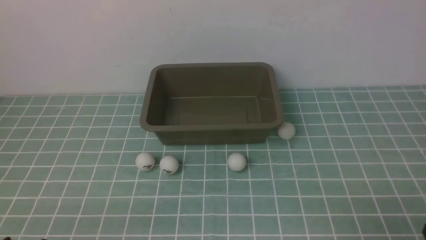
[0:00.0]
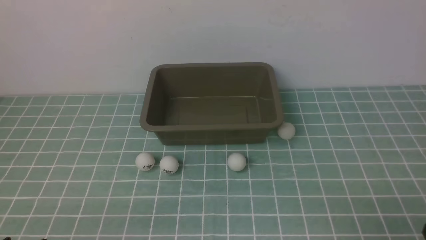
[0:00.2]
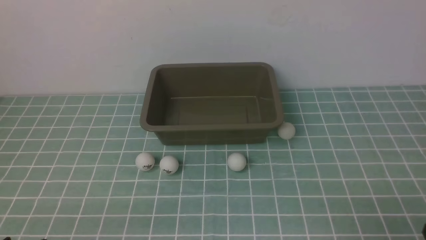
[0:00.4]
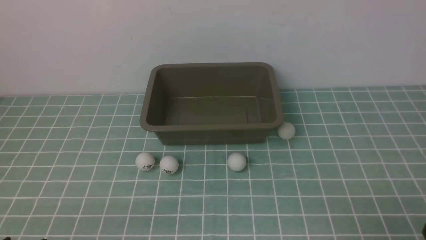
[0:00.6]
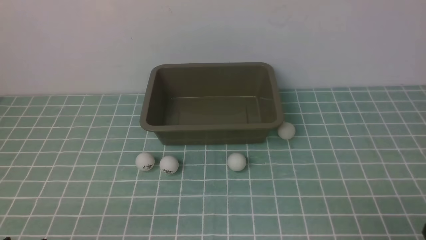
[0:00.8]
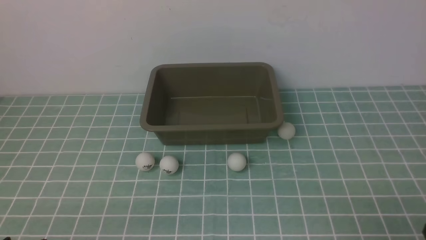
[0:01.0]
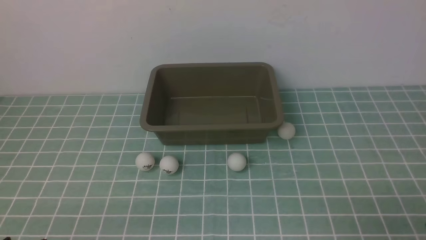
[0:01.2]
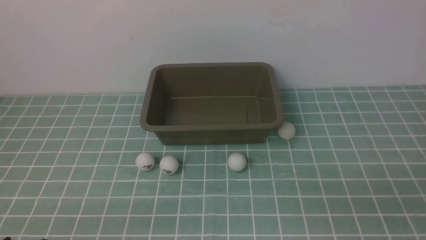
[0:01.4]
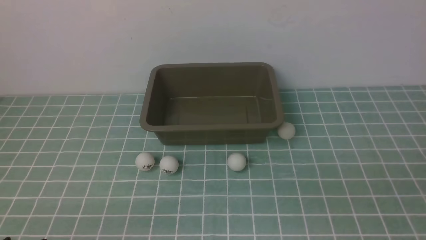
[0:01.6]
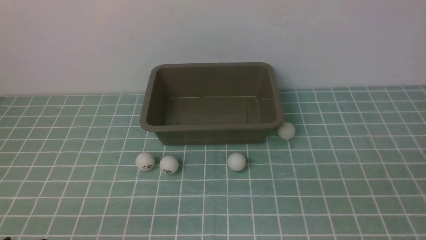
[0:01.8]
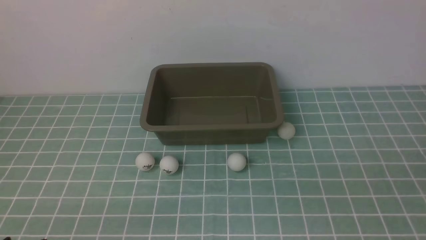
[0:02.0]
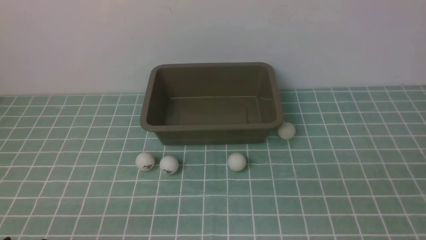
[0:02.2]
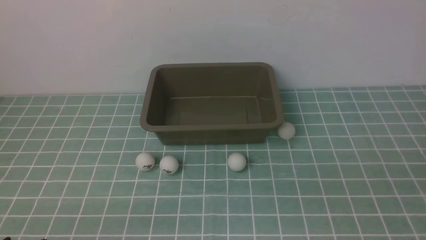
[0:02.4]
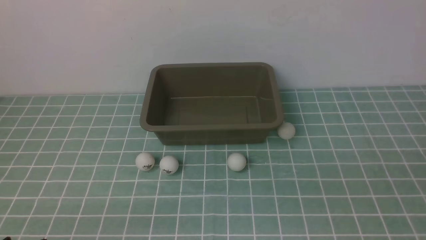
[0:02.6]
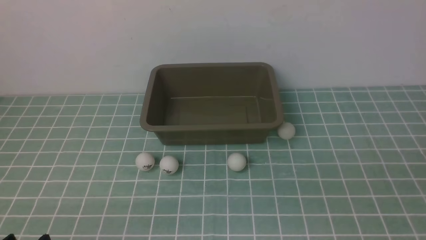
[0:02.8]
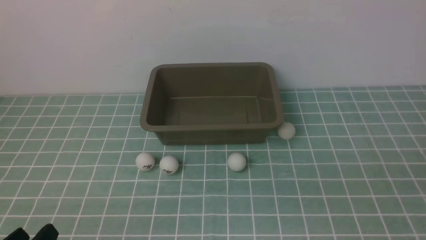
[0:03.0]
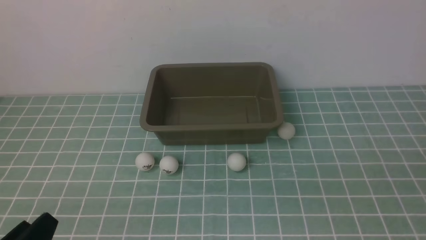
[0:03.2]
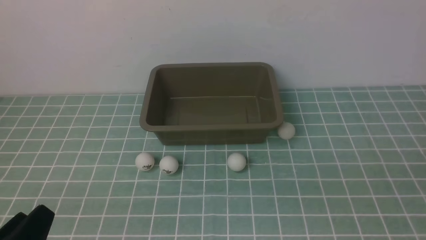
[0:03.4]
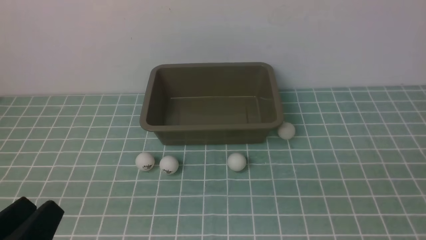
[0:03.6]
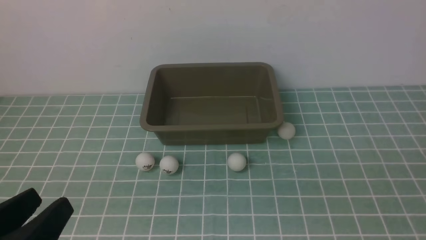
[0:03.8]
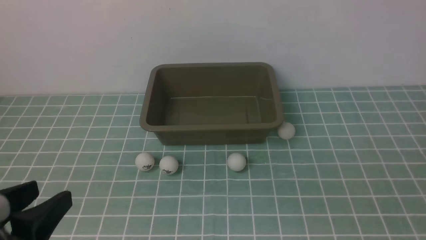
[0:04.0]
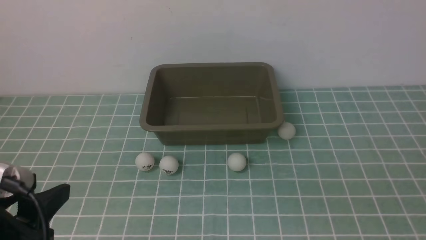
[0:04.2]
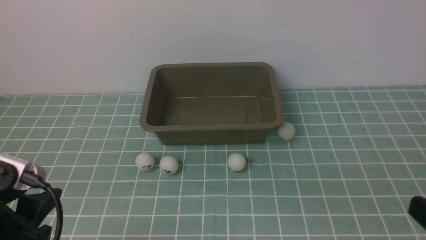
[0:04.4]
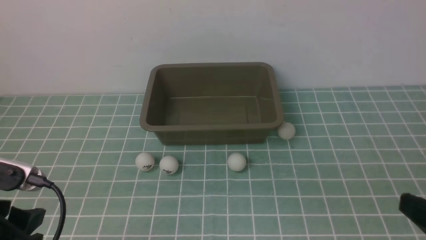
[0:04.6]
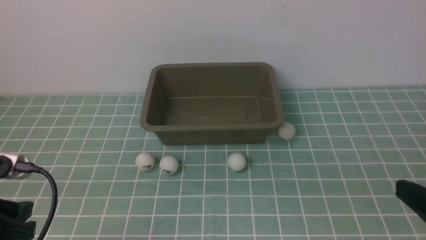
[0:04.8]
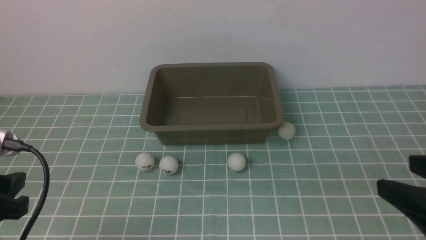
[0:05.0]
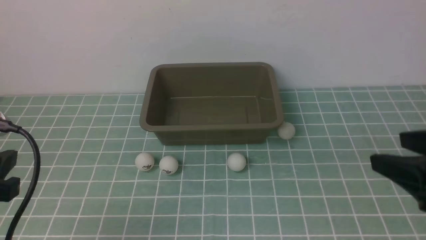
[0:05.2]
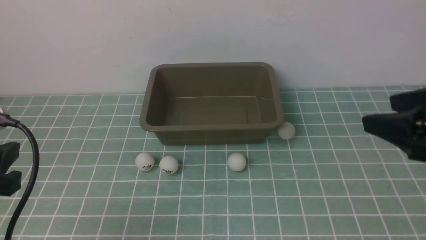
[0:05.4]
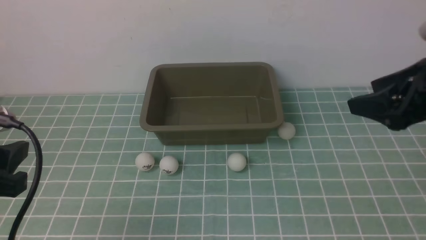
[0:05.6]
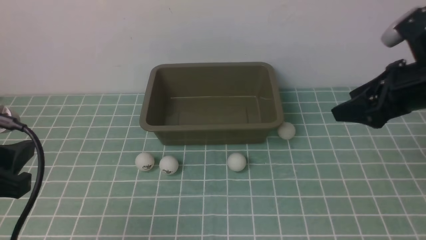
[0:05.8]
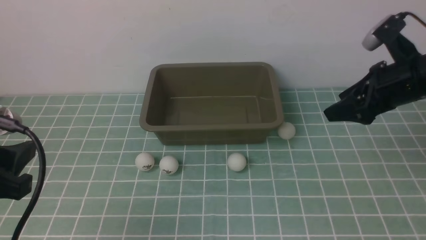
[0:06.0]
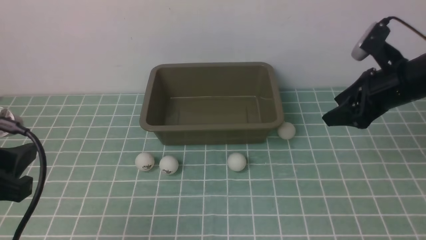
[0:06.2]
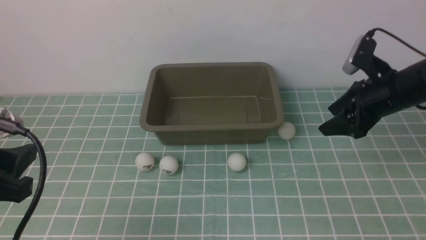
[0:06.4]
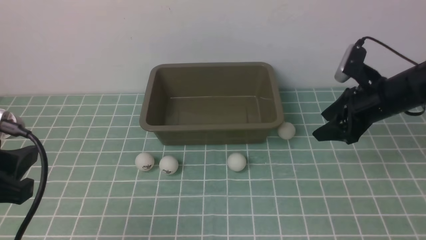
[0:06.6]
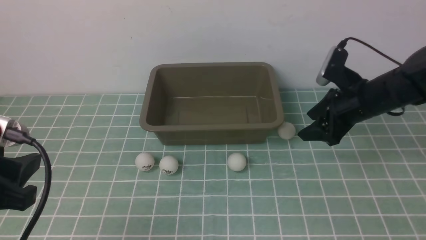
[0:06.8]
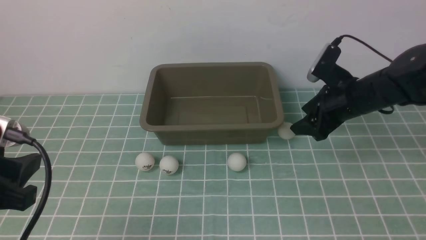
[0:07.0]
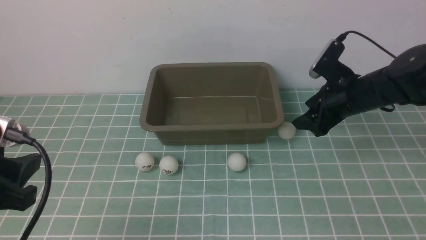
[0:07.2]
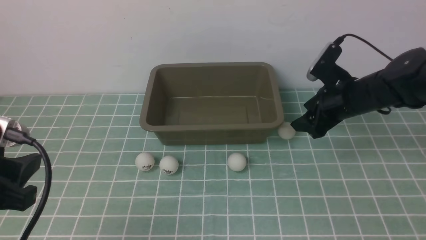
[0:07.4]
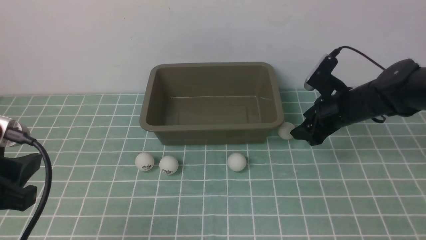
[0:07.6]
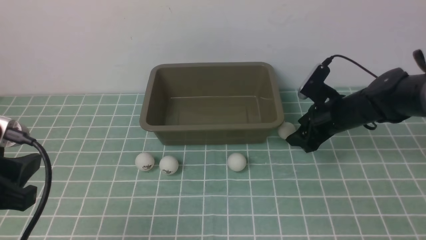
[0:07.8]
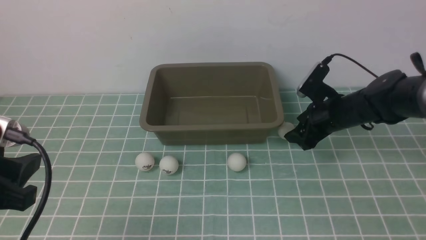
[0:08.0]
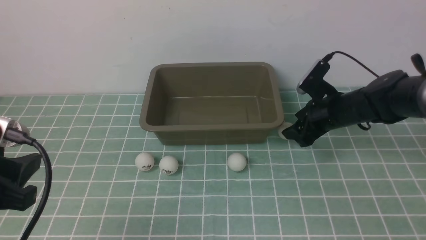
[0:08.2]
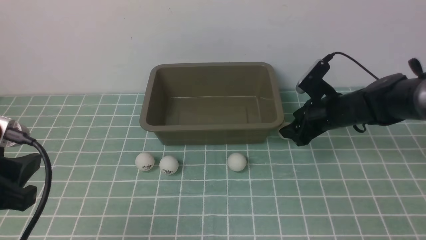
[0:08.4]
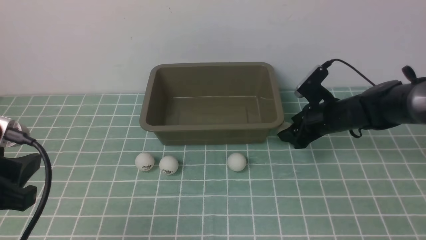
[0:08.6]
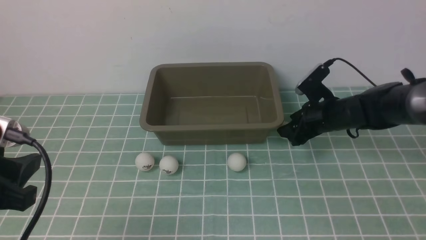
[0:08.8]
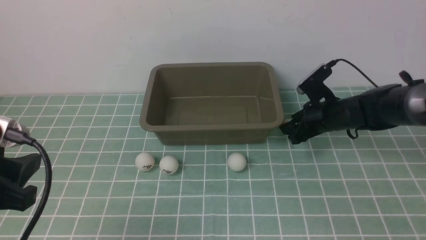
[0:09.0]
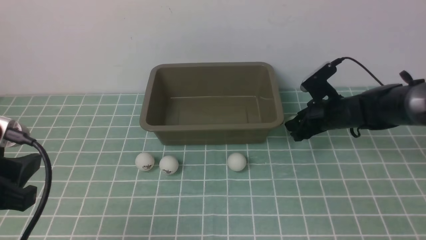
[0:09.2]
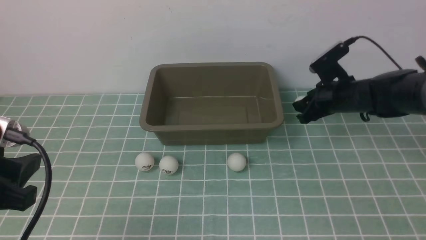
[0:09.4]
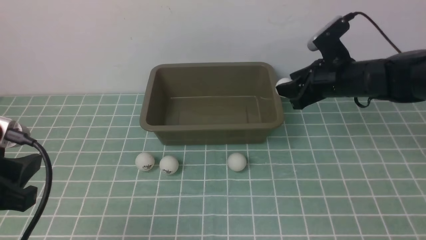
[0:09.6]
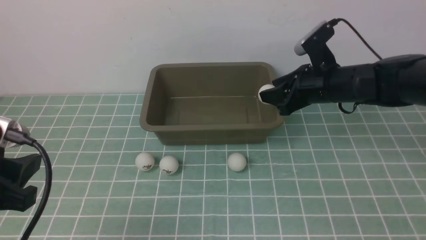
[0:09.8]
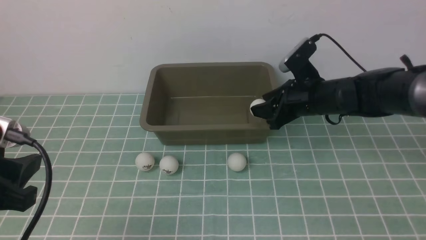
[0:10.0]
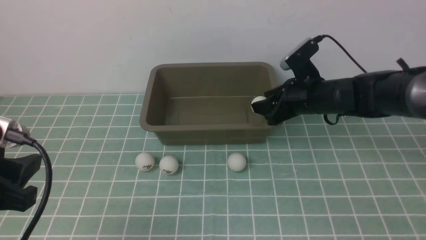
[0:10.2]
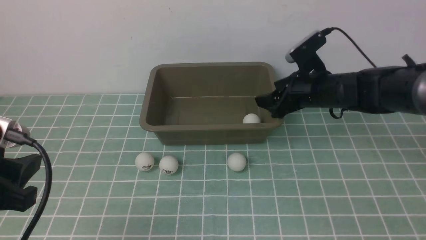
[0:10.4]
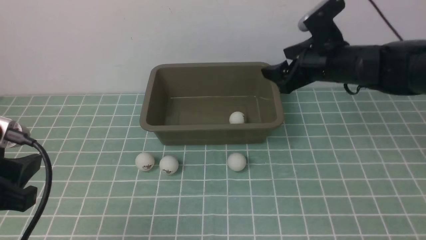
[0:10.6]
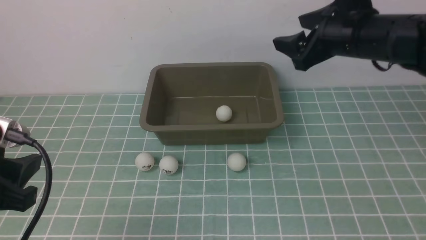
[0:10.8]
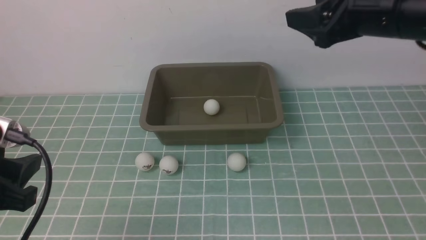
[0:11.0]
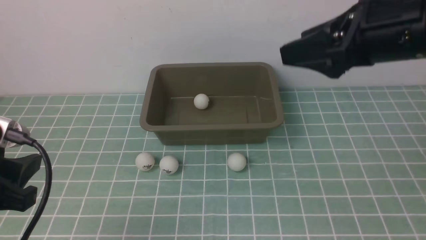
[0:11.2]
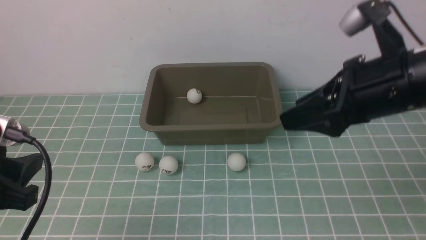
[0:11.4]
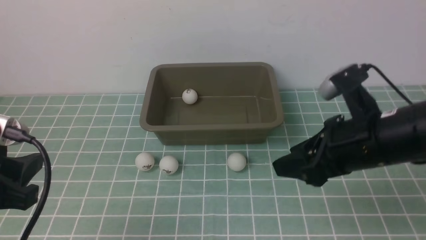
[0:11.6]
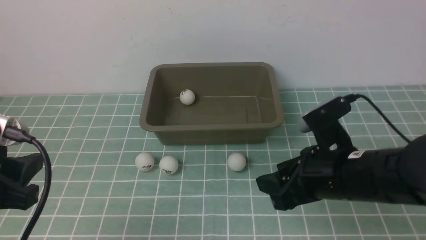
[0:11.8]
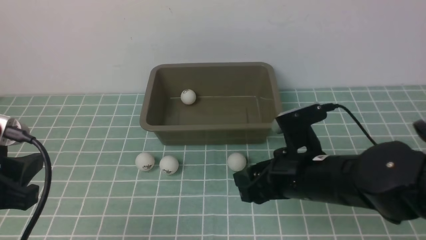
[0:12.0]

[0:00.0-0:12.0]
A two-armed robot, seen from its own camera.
Step, 0:00.0 to 0:09.2: use the right arm to clamp the table tennis ball closest to it.
Step, 0:09.4 to 0:10.4: use the right arm to put the table tennis ball into the box.
0:03.0 to 0:04.4: The left gripper goes approximately 10 cm upward and forward.
0:04.4 to 0:06.0: The left gripper changes place by some 5 cm; the right gripper shifts about 25 cm forward.
0:06.0 to 0:07.6: The right gripper heads downward and forward, covering roughly 15 cm.
0:07.6 to 0:09.0: The right gripper closes.
0:09.0 to 0:10.4: The right gripper goes approximately 10 cm upward, and opens its fingers.
0:10.4 to 0:12.0: The right gripper moves backward and to the left, roughly 15 cm, and reaches approximately 15 cm upward, then returns.

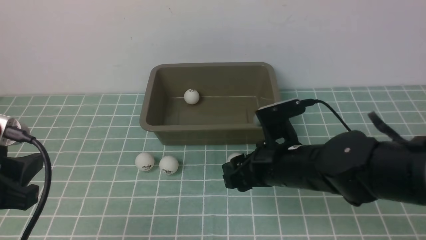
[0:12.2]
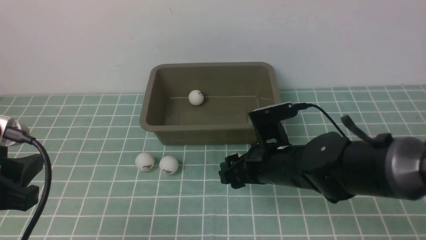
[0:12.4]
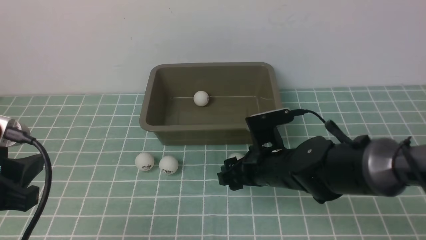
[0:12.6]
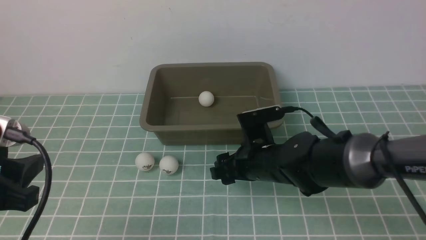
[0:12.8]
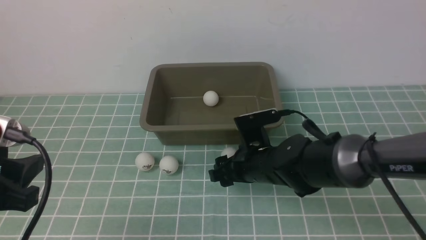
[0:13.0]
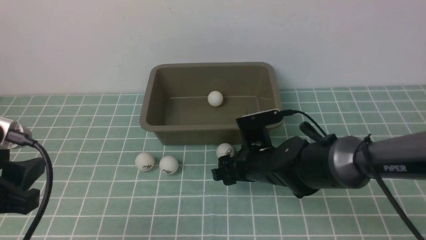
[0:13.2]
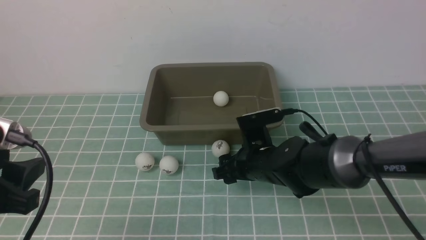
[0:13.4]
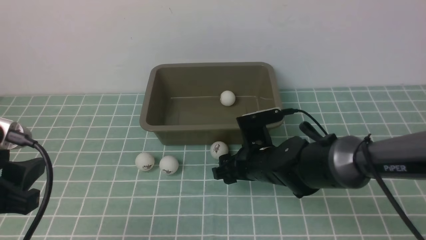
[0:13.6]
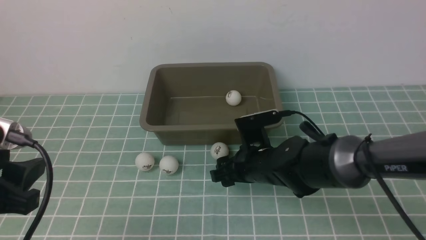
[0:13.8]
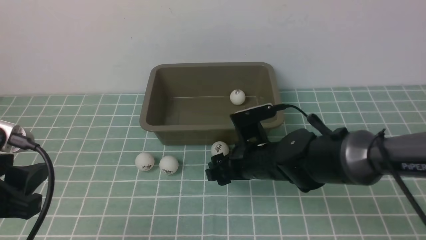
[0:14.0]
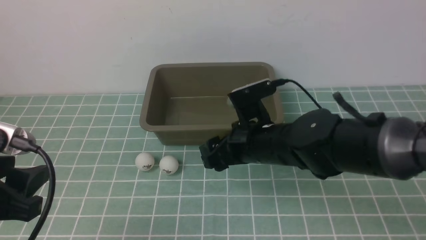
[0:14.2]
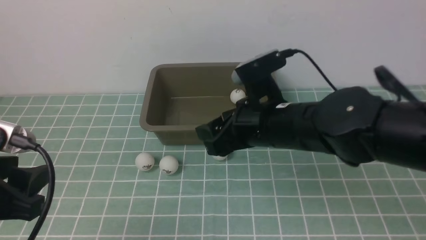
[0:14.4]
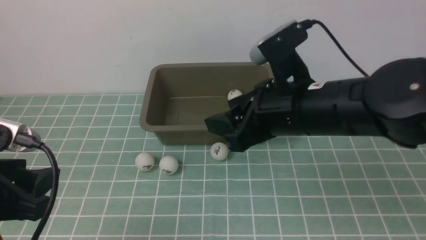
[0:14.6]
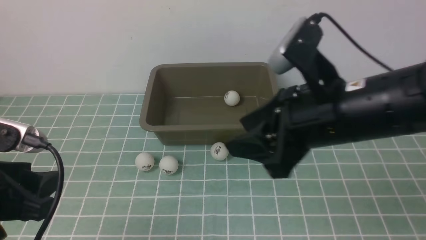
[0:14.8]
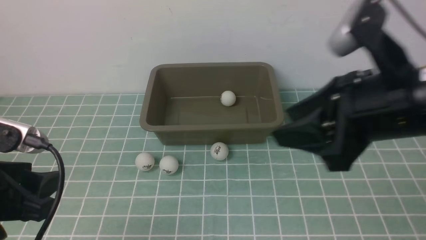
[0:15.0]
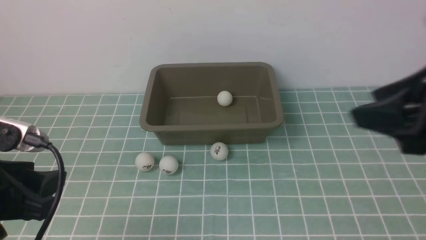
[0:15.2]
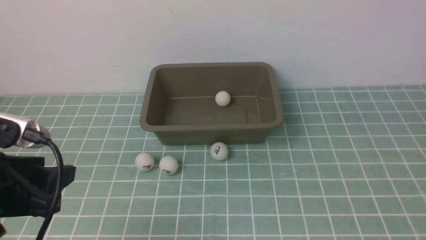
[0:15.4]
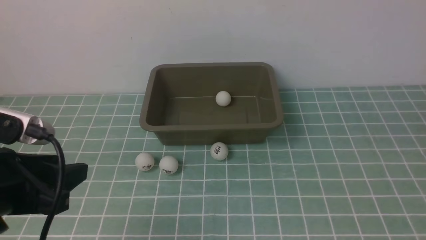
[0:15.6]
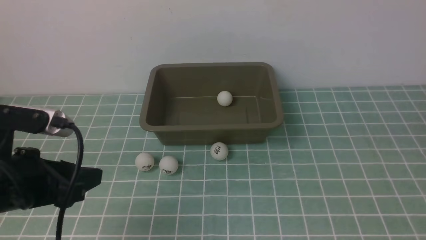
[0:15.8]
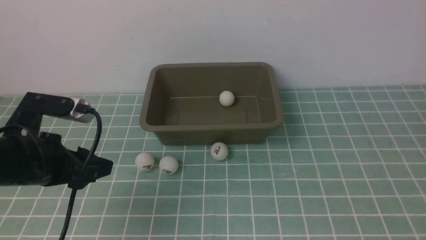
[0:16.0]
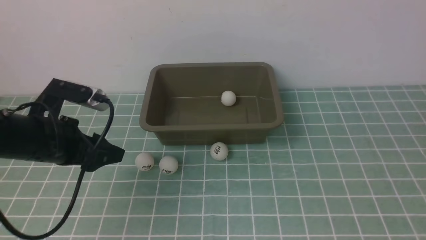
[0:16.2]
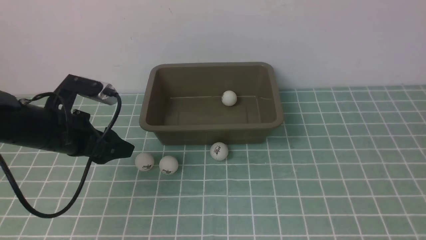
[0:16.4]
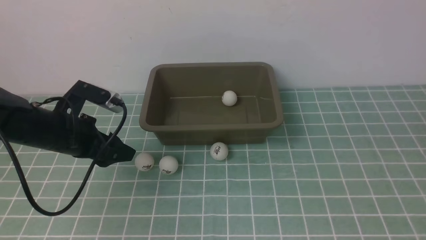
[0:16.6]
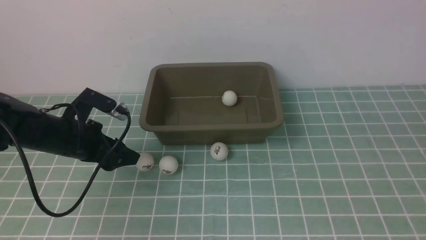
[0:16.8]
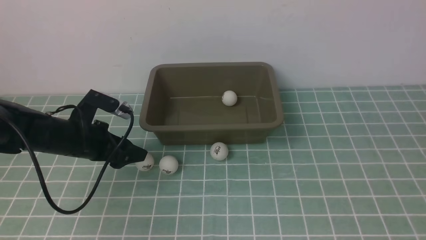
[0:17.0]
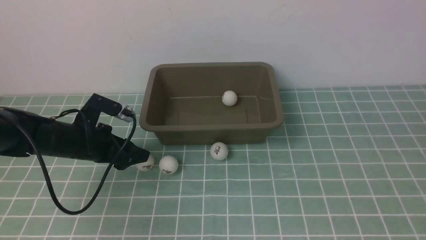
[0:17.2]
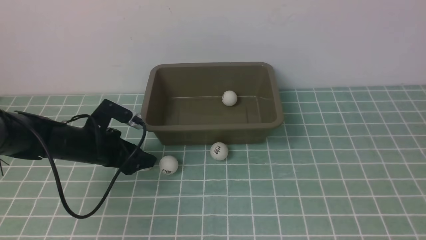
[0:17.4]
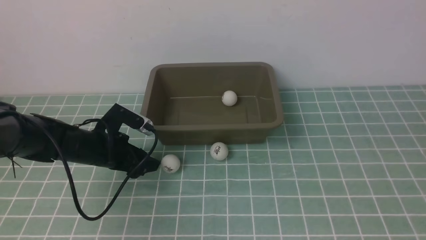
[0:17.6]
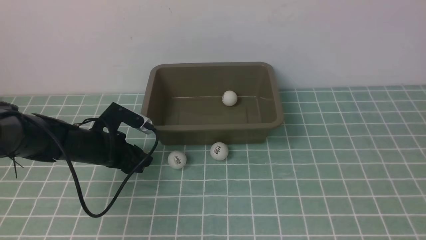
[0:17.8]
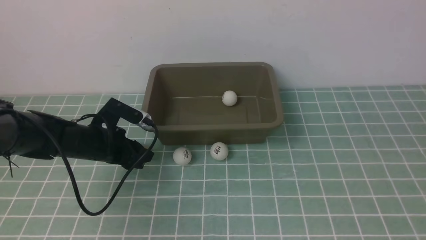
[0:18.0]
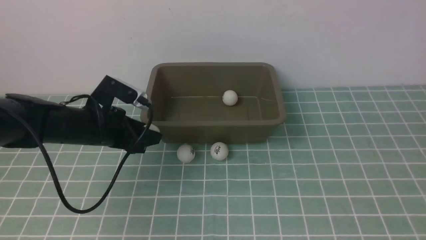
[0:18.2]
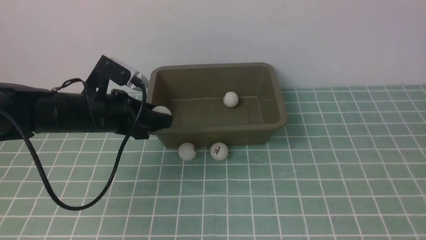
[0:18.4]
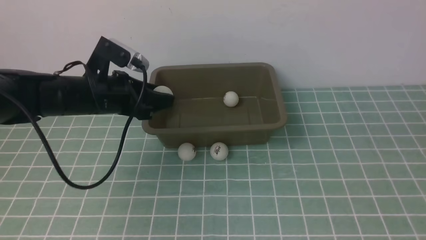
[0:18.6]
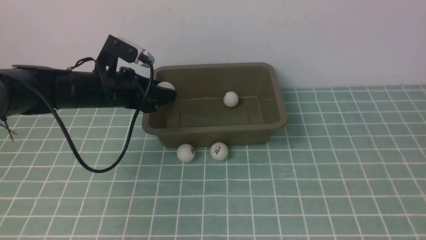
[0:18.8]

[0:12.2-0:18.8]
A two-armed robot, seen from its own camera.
Step, 0:12.2 to 0:18.2: use the left arm to clamp the table tennis ball closest to it.
0:12.2 to 0:13.8: The right gripper shifts by roughly 5 cm.
0:13.8 to 0:15.4: The right gripper travels upward, to the right and backward by some 35 cm, and closes up.
0:15.4 to 0:17.2: The left gripper travels forward and downward by some 25 cm. The right gripper shifts by some 5 cm.
0:17.2 to 0:18.8: The left gripper goes roughly 10 cm upward.
